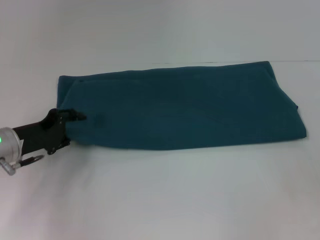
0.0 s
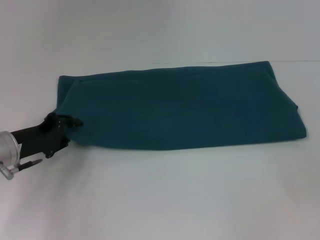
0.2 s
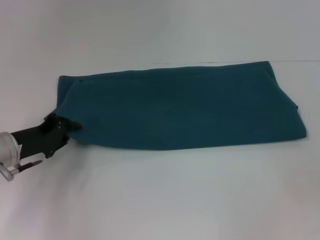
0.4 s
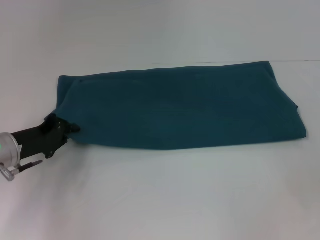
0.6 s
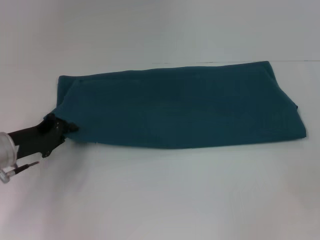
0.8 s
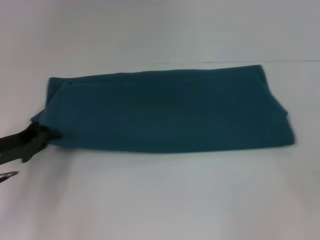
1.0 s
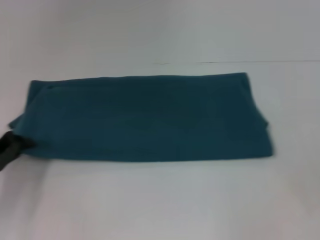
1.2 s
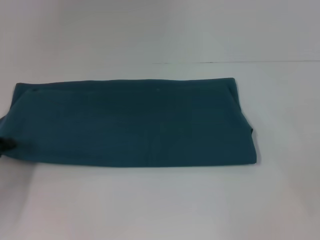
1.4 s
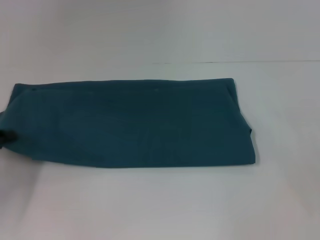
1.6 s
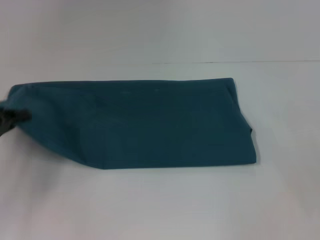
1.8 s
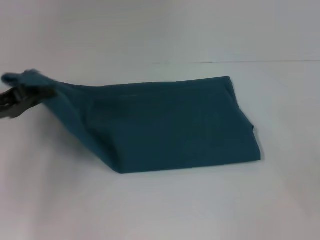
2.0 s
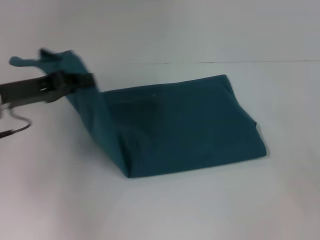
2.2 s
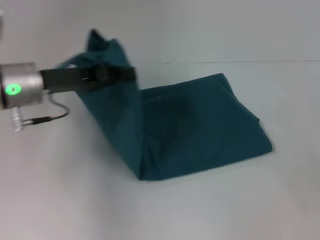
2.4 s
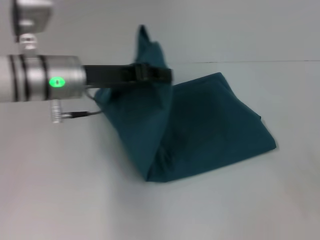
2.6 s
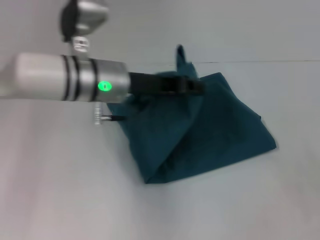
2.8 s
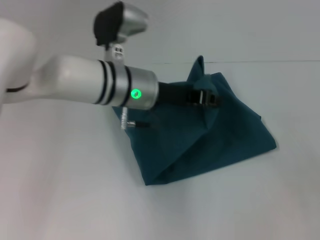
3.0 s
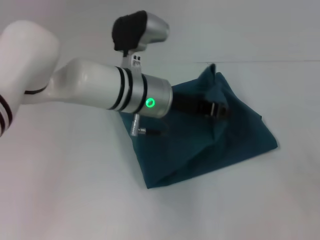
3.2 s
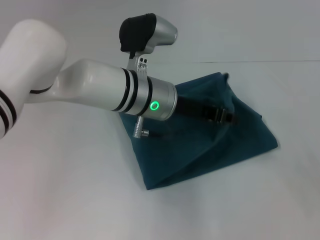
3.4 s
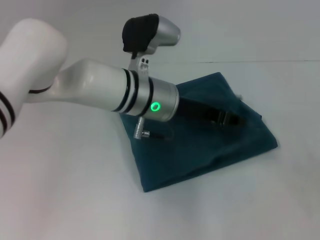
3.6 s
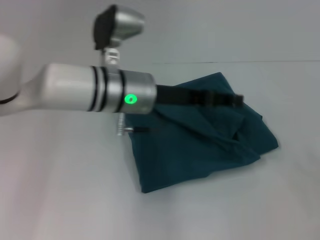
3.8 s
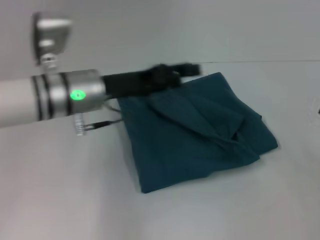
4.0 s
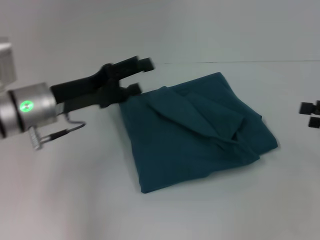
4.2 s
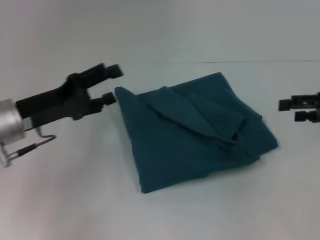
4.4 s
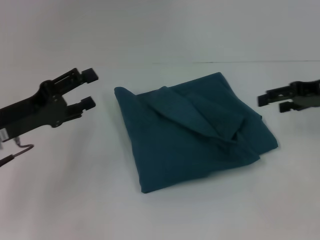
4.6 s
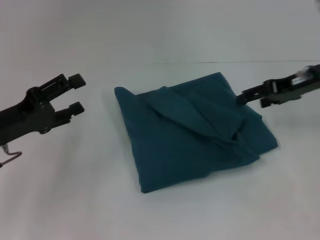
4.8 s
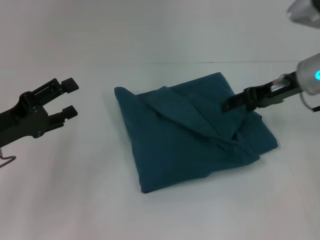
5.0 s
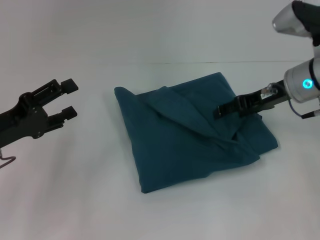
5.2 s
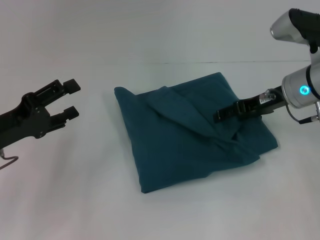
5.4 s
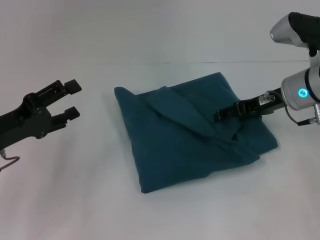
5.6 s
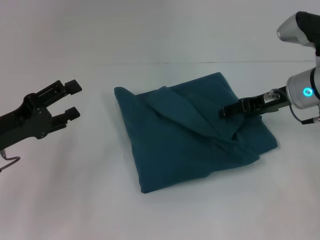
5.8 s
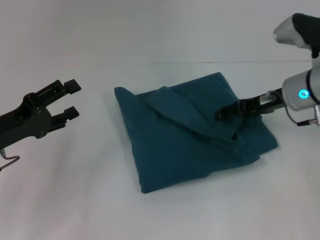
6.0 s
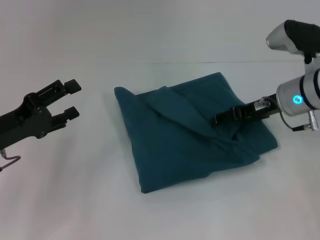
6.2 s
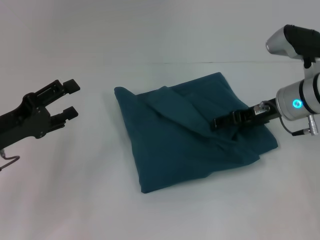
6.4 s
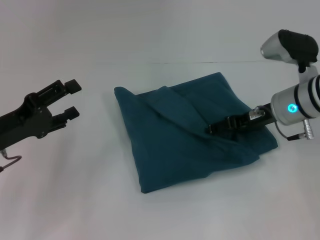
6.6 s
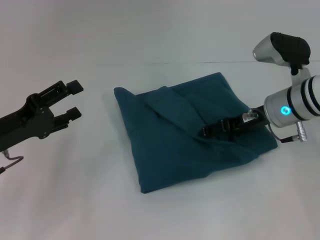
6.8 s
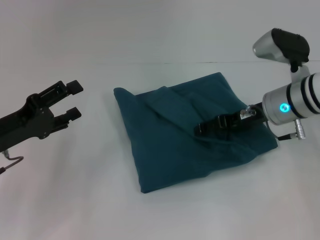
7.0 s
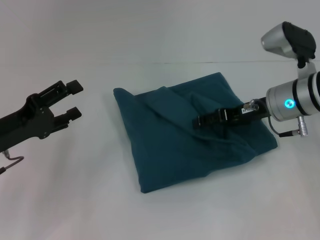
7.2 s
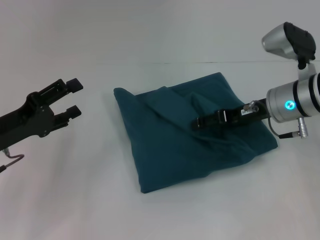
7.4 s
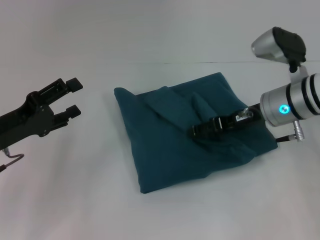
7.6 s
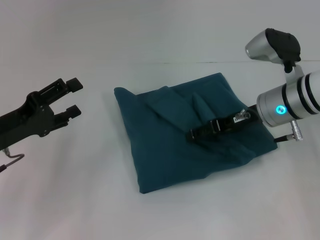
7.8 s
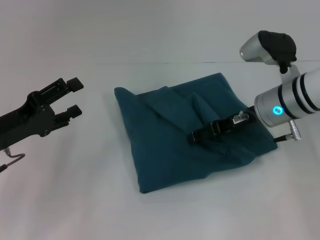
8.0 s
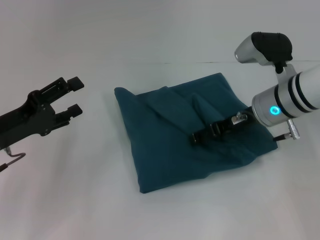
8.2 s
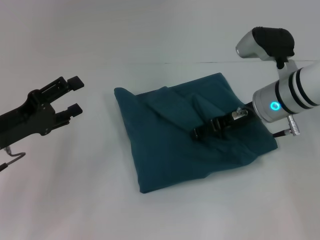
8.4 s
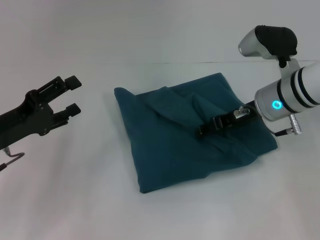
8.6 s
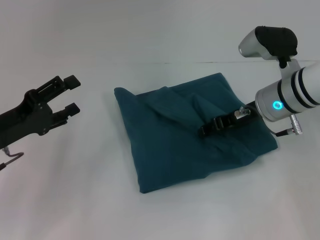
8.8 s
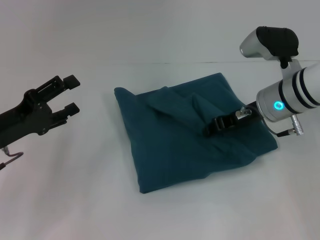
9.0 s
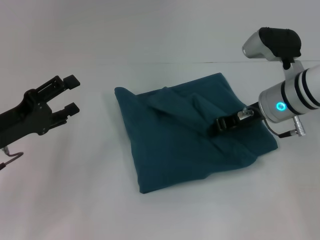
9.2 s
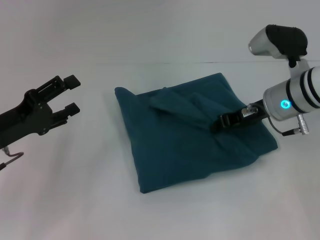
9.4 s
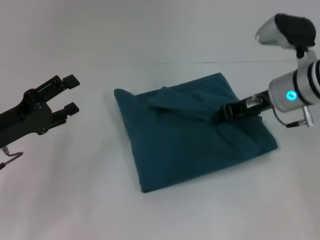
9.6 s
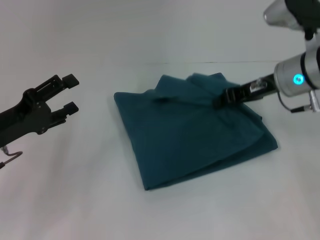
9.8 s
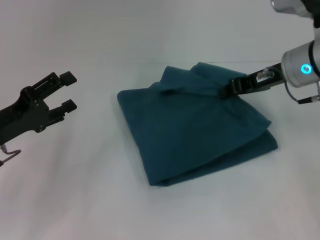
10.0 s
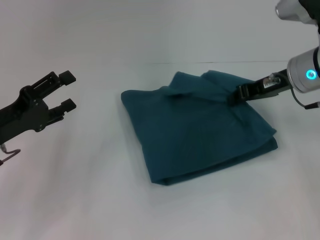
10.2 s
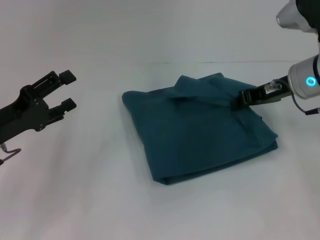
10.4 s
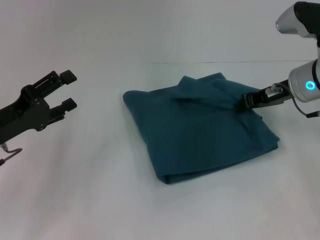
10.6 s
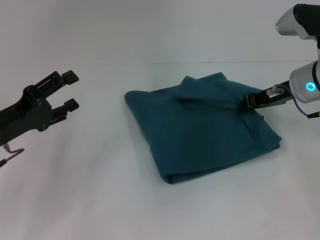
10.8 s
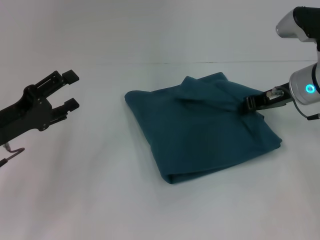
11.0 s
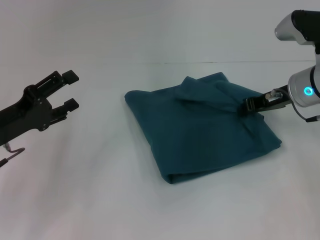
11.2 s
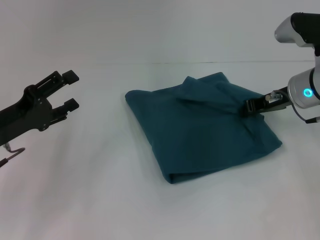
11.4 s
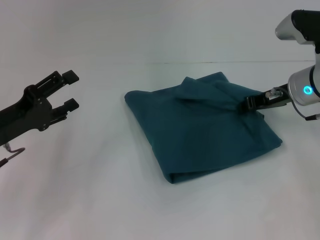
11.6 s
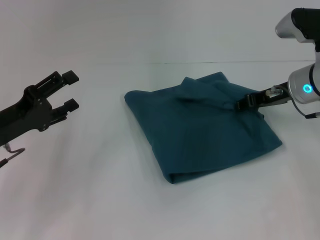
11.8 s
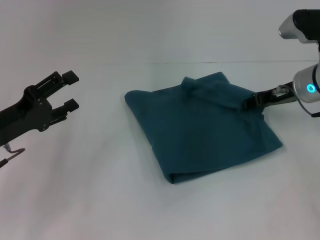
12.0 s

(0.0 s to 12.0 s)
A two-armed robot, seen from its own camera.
Step, 0.0 s - 3.8 s: Fold the clothes to the left.
0.0 s - 1.6 s: The left gripper moves to the left and backward, about 10 cm, and closes up.
1.6 s - 3.0 s: The left gripper heads to the right, covering about 30 cm.
3.0 s - 4.4 s: The right gripper goes about 10 cm forward and to the left, while the left gripper goes roughly 20 cm to the left, and opens.
4.4 s - 6.0 s: The right gripper travels to the left and forward by about 15 cm; the left gripper ends up some 5 cm from where it was.
6.0 s - 9.0 s: There are only small adjustments of the grippers.
9.0 s - 10.4 s: The right gripper changes place by some 5 cm, and closes up.
10.4 s - 12.0 s: The right gripper opens.

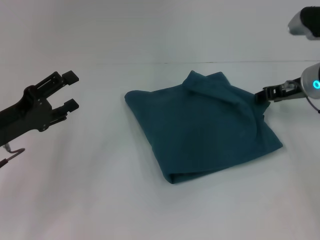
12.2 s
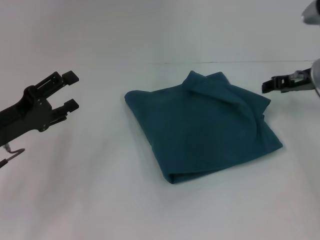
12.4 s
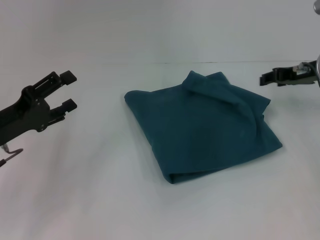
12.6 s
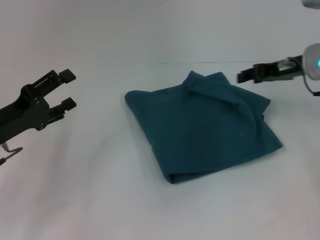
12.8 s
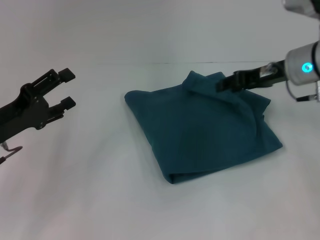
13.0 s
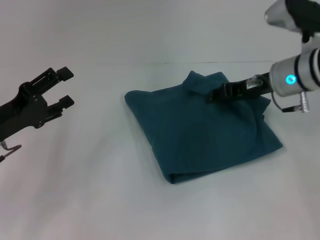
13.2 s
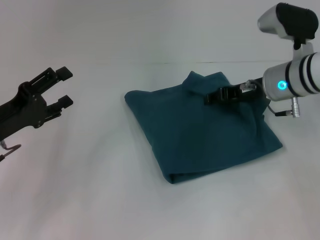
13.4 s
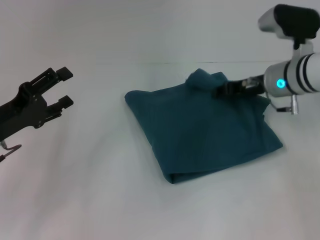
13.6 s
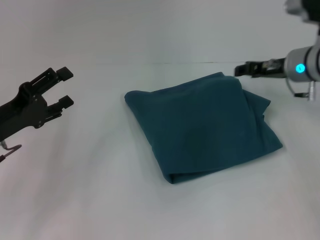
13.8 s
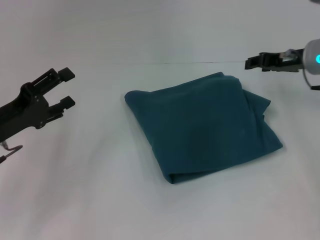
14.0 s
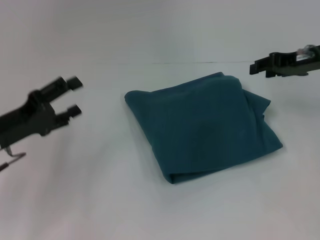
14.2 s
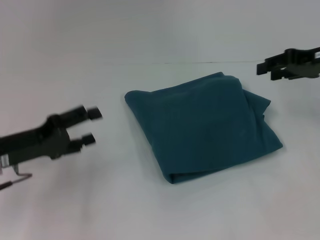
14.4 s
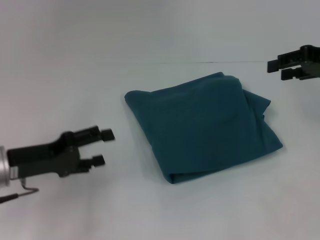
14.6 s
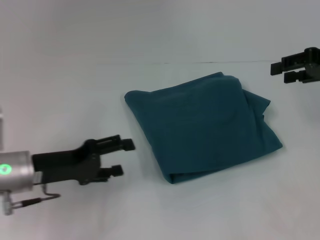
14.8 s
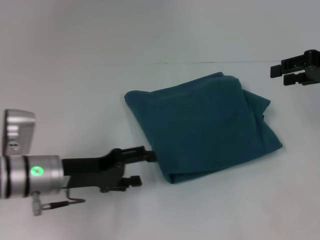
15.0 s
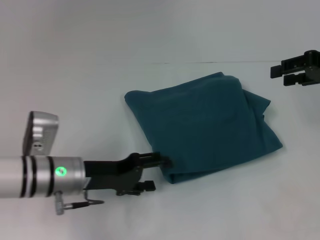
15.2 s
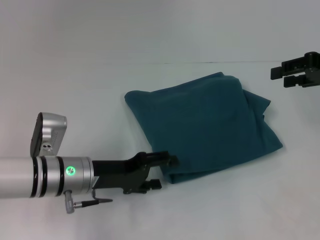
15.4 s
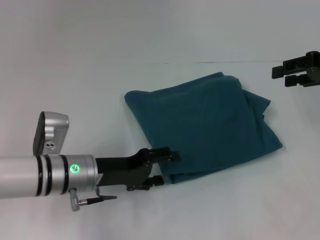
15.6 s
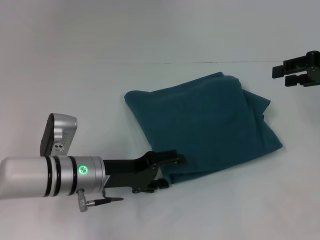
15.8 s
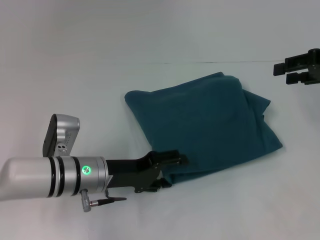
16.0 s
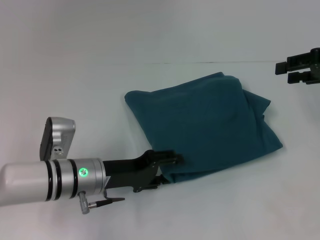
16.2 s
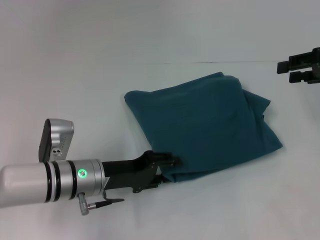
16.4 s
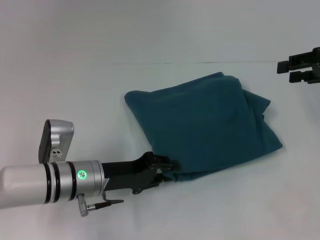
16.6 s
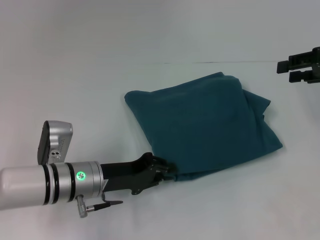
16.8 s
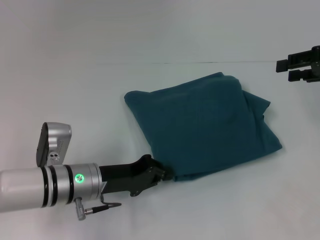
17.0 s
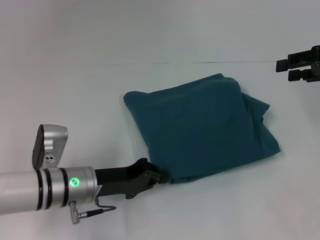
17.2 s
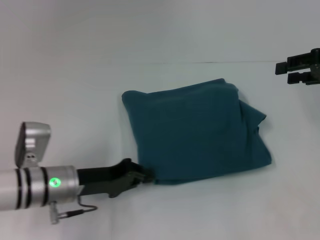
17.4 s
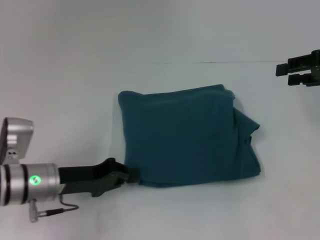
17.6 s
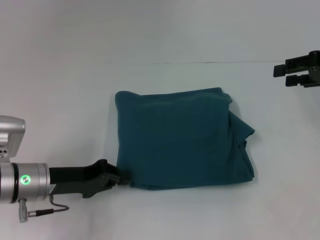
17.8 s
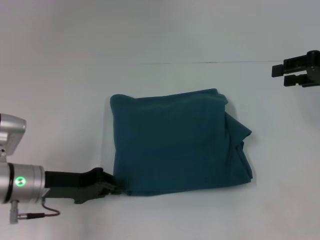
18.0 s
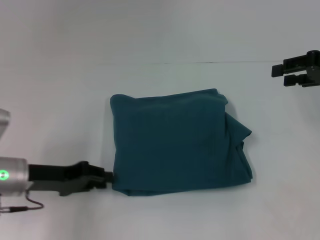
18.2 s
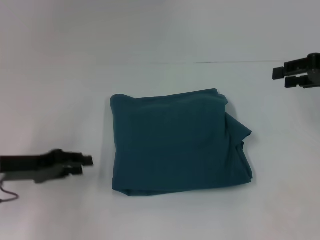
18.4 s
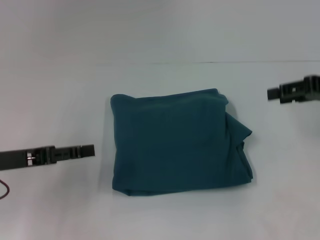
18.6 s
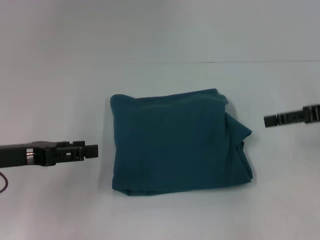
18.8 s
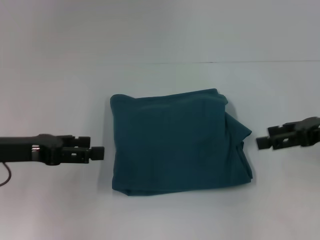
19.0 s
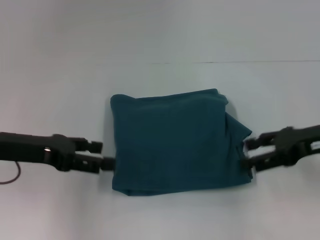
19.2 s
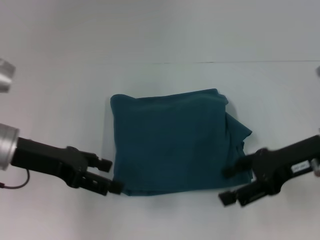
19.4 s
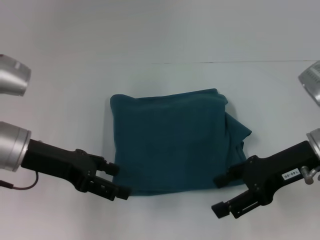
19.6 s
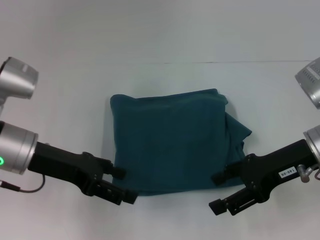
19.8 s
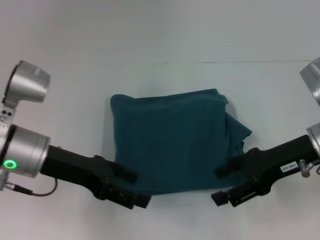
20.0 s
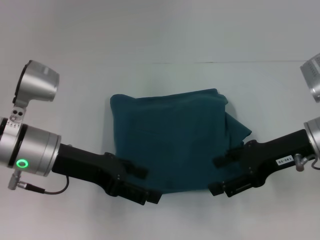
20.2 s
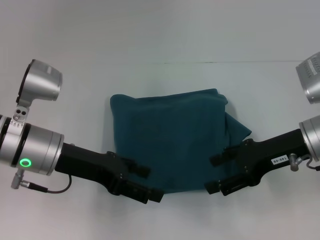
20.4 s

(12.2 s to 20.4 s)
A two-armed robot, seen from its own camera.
13.8 s - 15.4 s: The left gripper goes roughly 10 cm to the right. The right gripper travels to the right, upward and backward by some 15 cm.
15.4 s - 17.2 s: The left gripper closes up.
17.2 s - 18.8 s: The right gripper ends up some 5 cm from where it was; the left gripper travels to the left and upward by some 15 cm, and opens.
18.8 s - 20.4 s: The left gripper is displaced to the right by about 10 cm, while the right gripper is displaced to the left by some 10 cm.

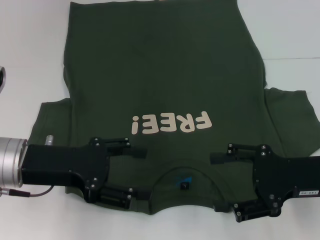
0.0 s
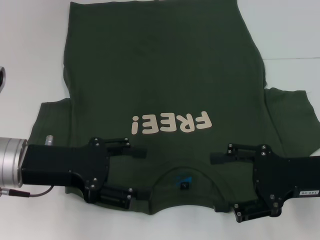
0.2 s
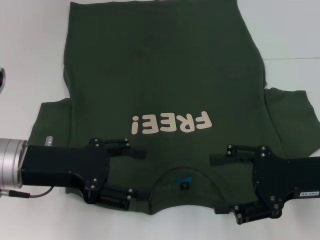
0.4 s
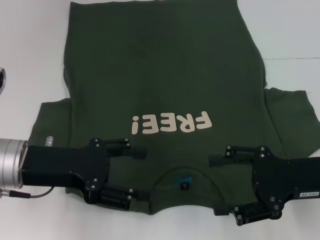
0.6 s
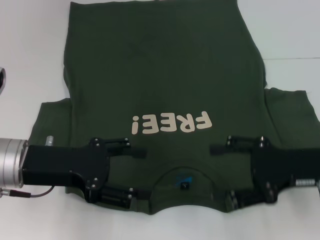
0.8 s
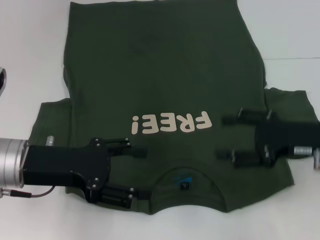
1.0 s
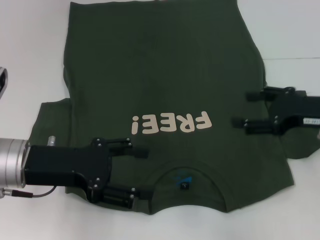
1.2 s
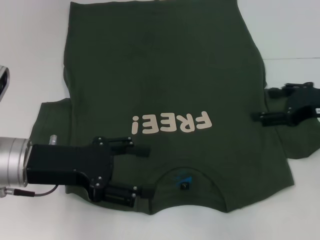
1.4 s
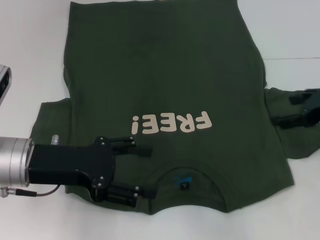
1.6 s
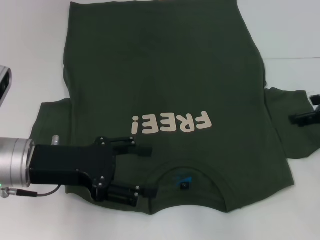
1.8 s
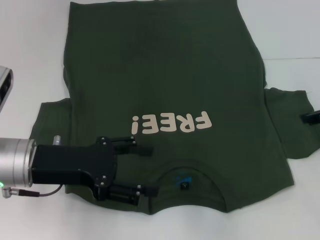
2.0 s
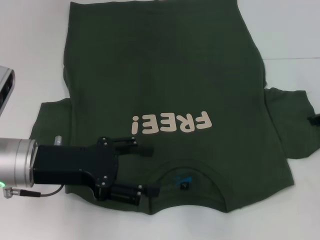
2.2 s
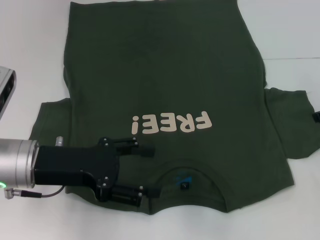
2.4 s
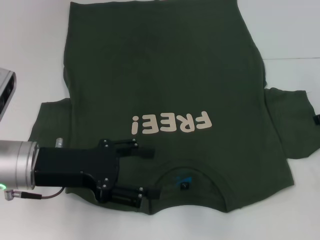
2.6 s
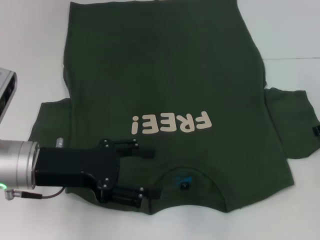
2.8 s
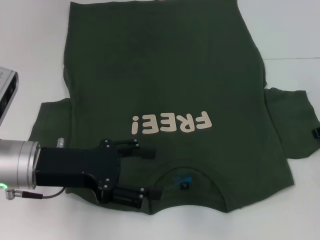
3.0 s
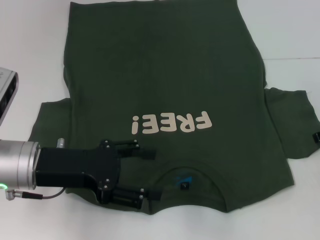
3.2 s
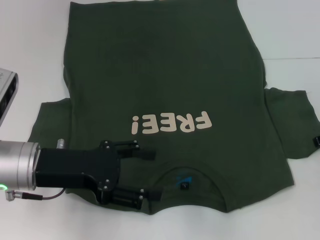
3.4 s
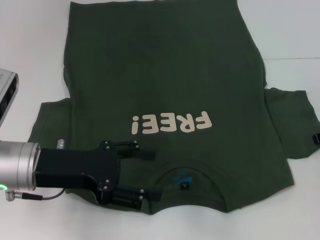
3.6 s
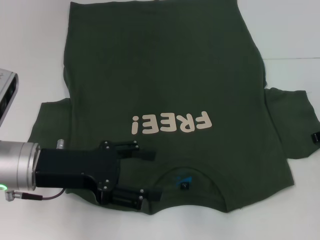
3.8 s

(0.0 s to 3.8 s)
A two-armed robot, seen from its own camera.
0.0 s - 1.2 s: The right gripper moves forward, approximately 5 cm.
1.2 s - 2.6 s: The right gripper goes about 5 cm to the right.
2.6 s - 3.8 s: There are only small adjustments of the grippers.
